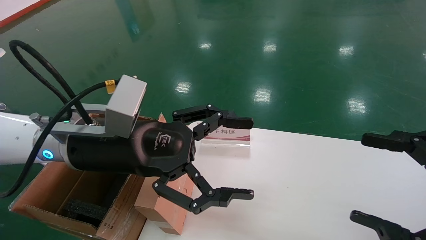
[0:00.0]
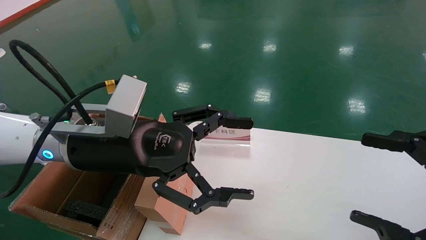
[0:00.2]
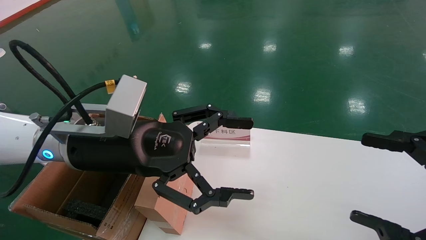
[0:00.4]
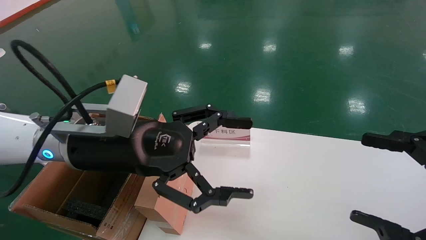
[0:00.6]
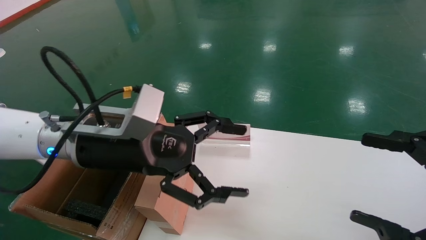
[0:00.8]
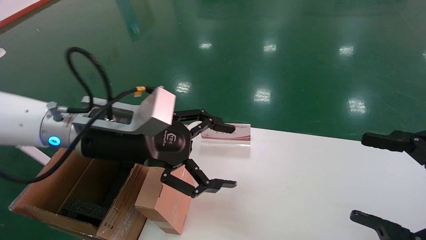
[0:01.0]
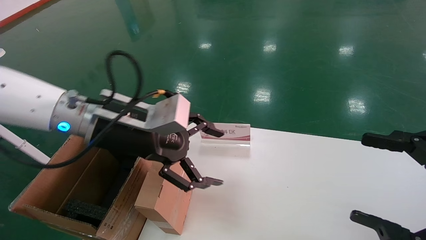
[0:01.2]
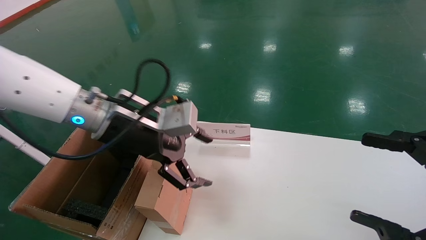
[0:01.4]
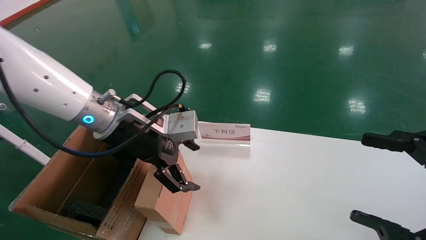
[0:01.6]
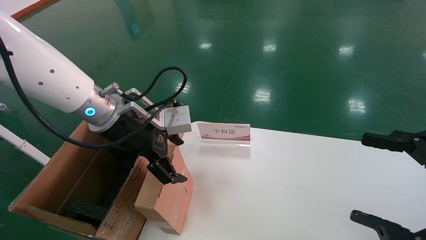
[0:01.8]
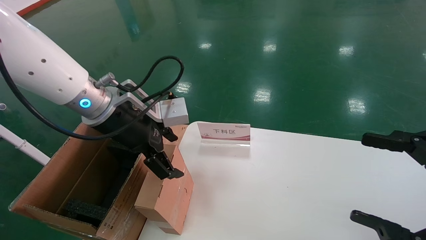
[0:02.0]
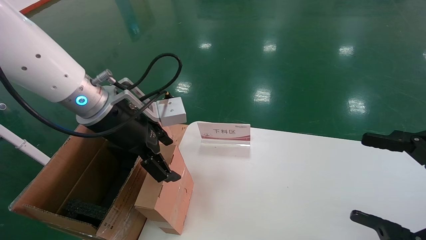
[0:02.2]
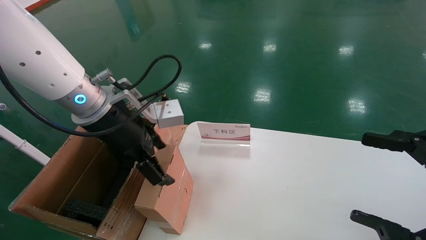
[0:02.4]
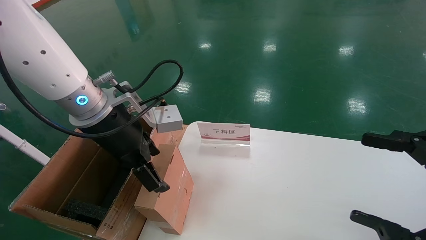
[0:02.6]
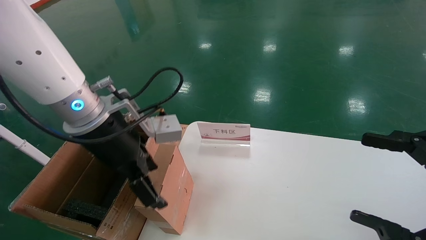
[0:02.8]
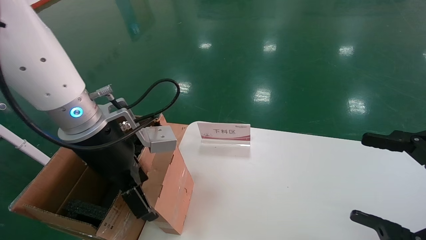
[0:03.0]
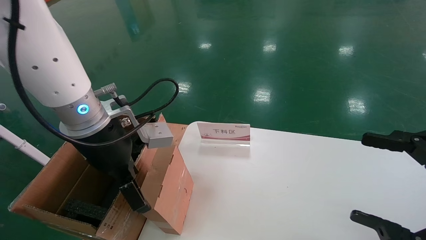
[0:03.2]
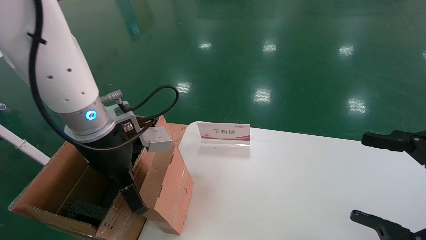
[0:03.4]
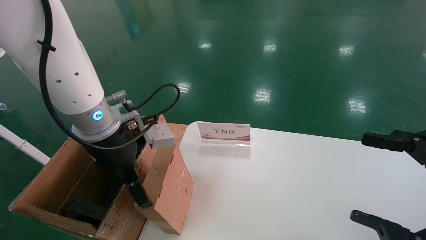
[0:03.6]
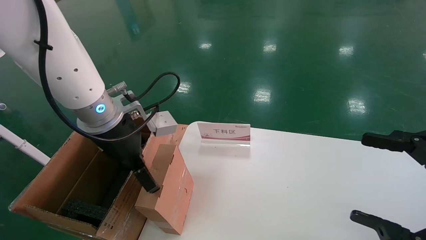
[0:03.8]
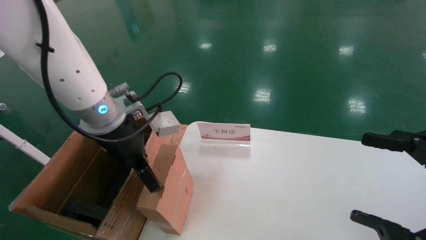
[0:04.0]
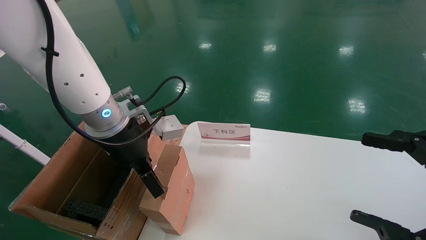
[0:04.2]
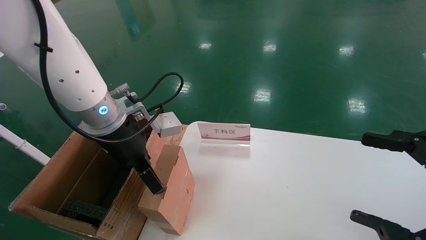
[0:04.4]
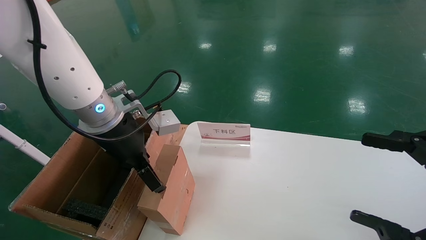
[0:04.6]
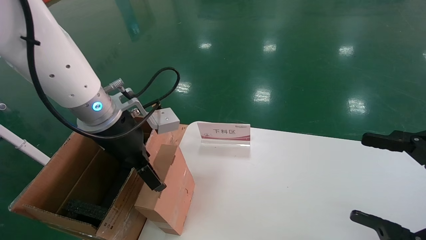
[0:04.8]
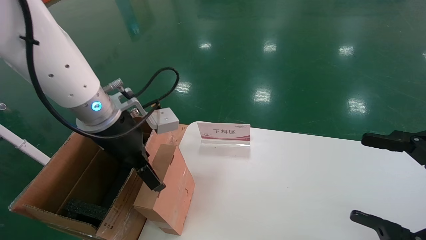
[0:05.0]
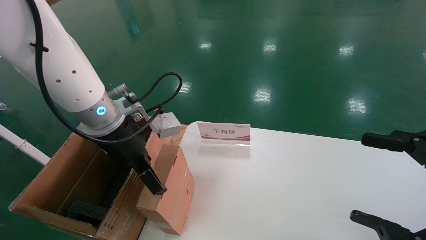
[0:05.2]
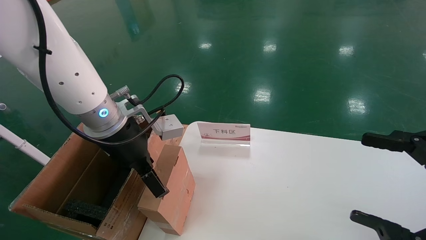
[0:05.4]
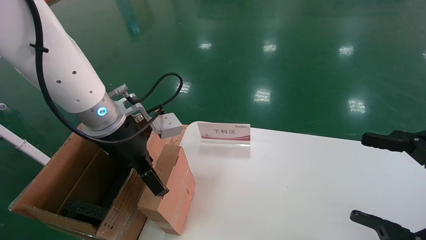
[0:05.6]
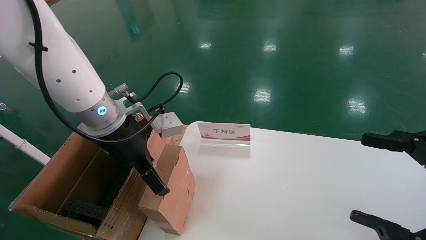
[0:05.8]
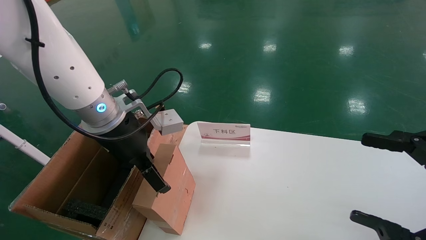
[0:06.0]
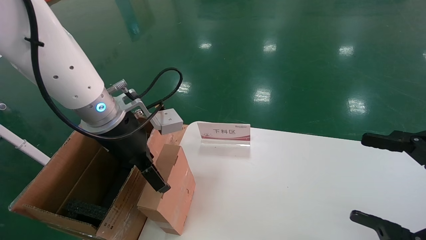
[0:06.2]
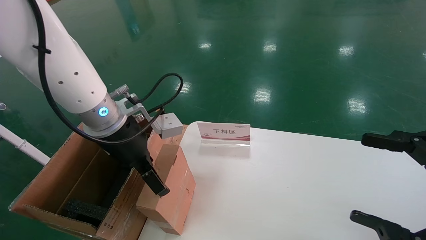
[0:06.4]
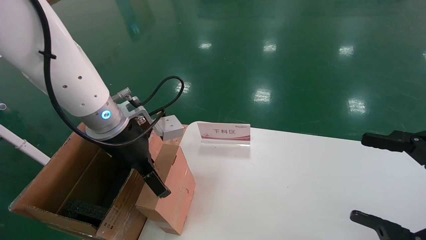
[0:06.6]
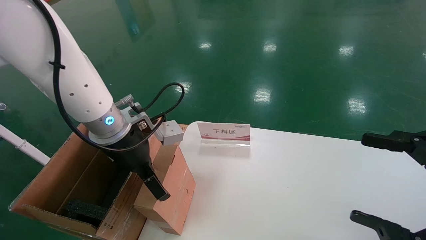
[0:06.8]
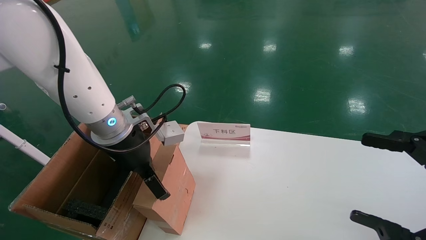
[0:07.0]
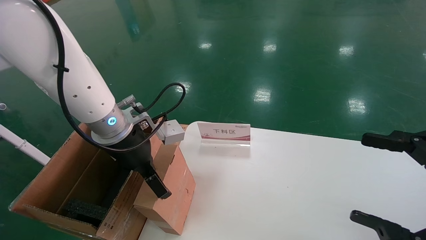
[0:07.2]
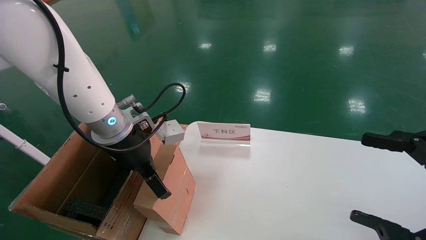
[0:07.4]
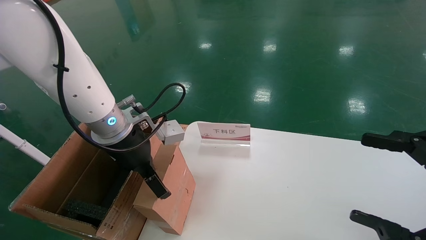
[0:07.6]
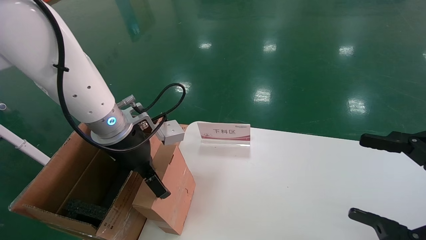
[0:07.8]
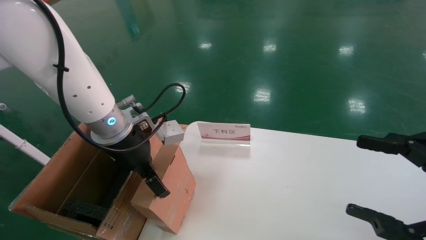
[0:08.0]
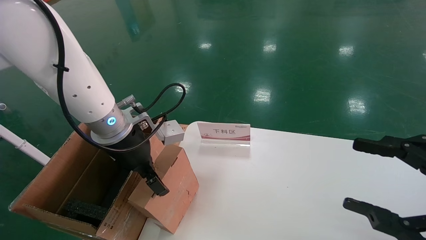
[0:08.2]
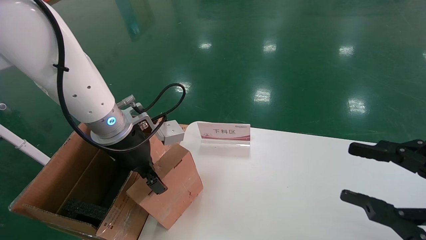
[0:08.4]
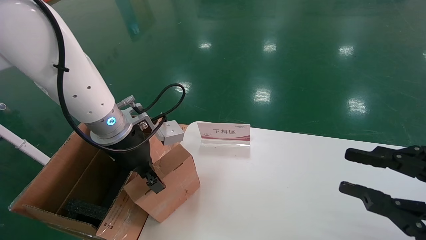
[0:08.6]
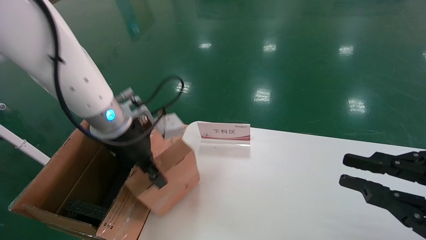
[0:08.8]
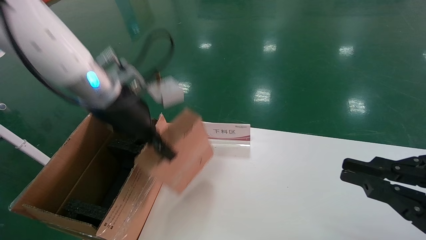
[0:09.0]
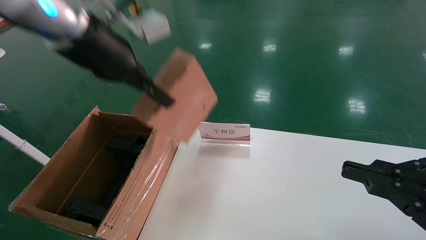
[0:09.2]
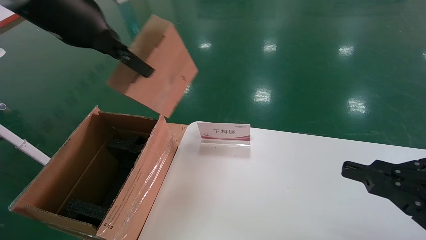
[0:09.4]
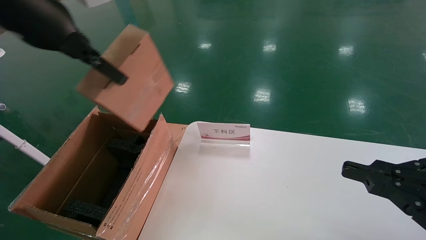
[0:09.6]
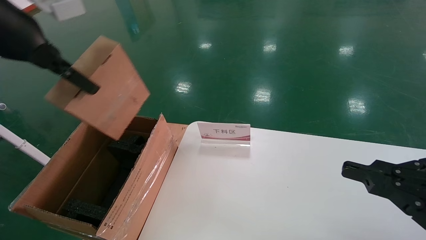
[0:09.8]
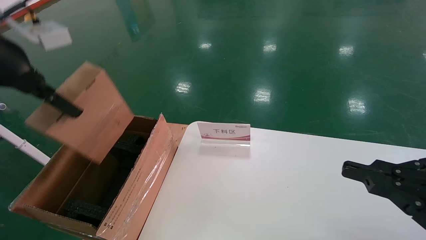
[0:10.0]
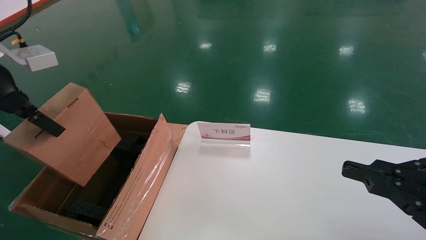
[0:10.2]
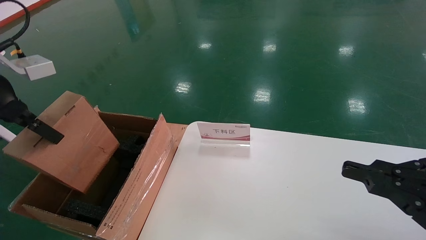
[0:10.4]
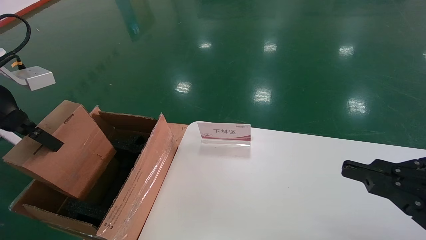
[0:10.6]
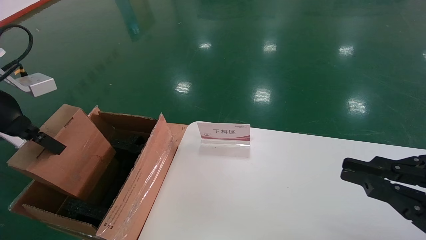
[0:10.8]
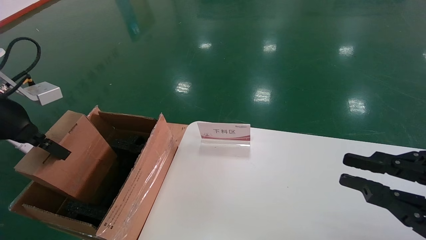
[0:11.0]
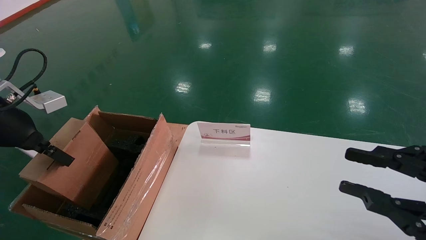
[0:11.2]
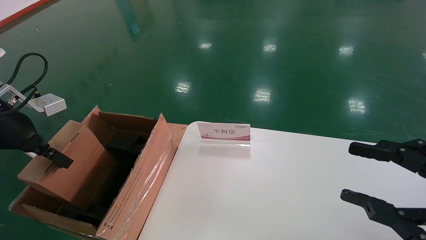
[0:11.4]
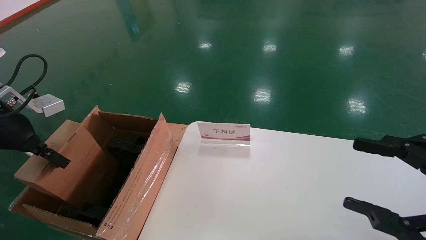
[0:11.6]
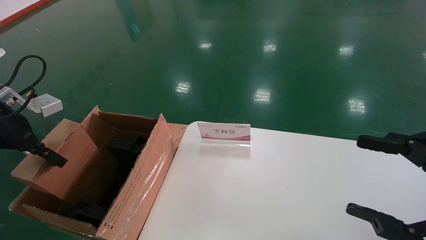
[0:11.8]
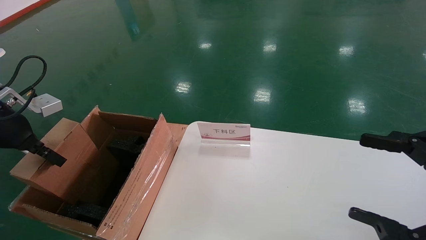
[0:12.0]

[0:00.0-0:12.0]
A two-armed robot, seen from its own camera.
Task of the whole recording: pick up the small cardboard box and load it into the large cardboard box.
Step, 0:01.0 to 0:08.6: Pick up the mouse and power cord box.
0:00.0 to 0:01.6: The left gripper moves forward, approximately 5 cm.
0:03.0 to 0:04.4: There are only small adjustments of the grippers.
0:04.4 to 0:06.0: The two grippers keep their place.
0:06.0 to 0:07.6: There are only small adjustments of the grippers.
0:07.6 to 0:09.0: The left gripper goes approximately 10 cm upward, and closes up, while the right gripper closes up.
0:09.0 to 0:10.4: The left gripper moves to the left and backward, approximately 20 cm.
0:10.4 to 0:12.0: The right gripper opens. The left gripper is displaced downward by approximately 10 cm.

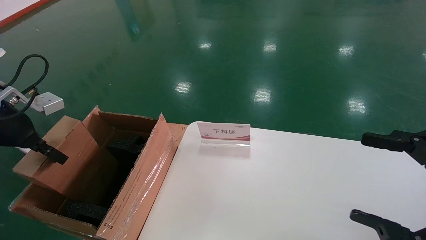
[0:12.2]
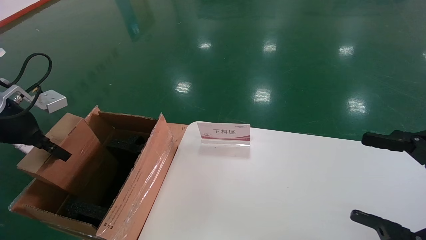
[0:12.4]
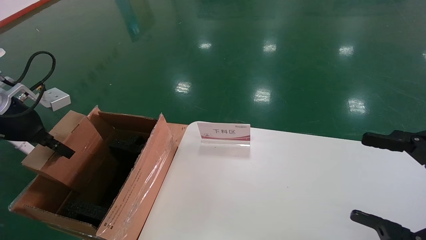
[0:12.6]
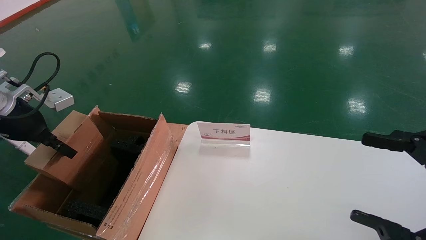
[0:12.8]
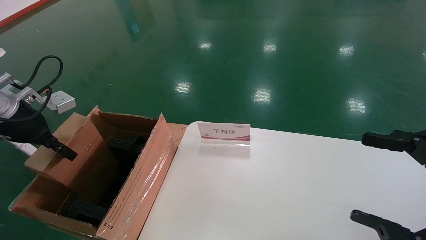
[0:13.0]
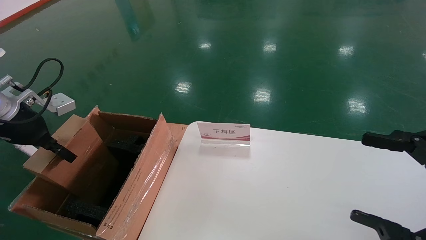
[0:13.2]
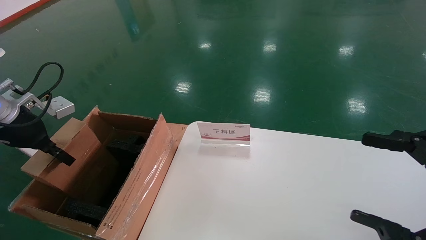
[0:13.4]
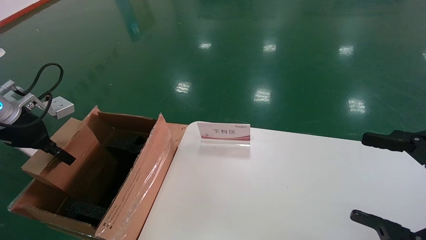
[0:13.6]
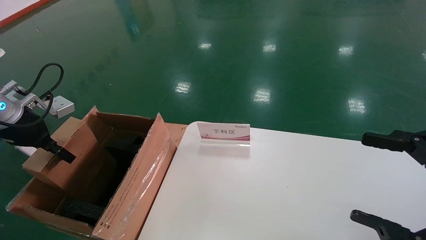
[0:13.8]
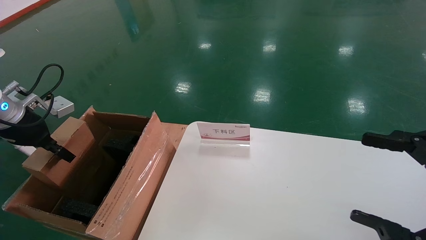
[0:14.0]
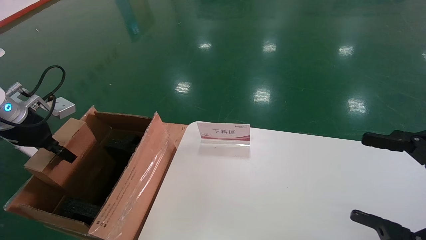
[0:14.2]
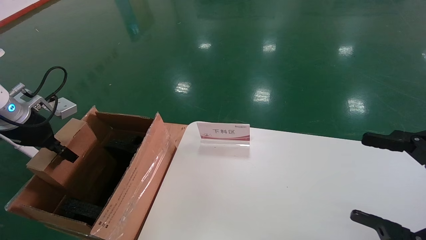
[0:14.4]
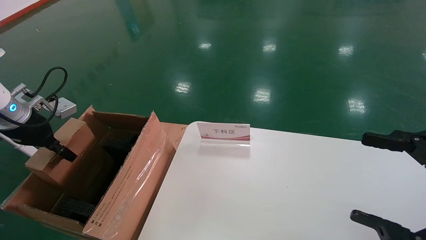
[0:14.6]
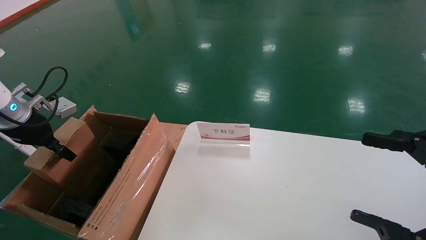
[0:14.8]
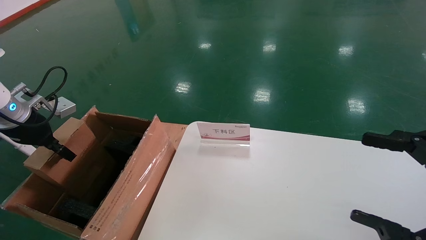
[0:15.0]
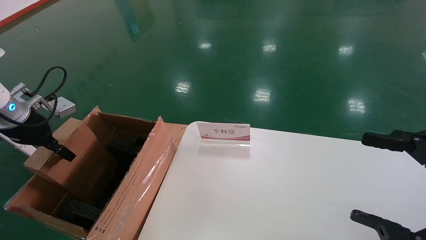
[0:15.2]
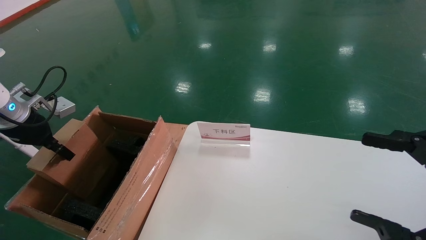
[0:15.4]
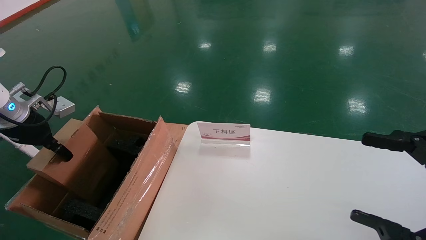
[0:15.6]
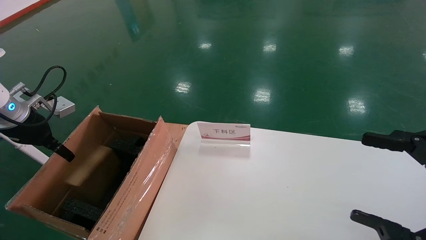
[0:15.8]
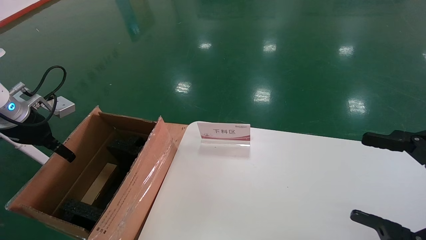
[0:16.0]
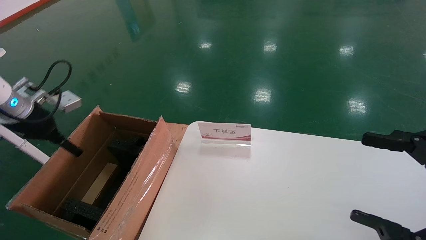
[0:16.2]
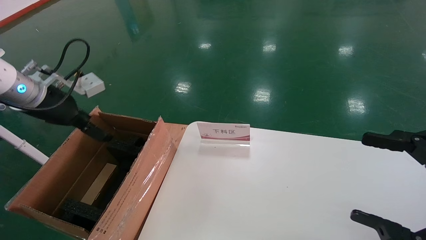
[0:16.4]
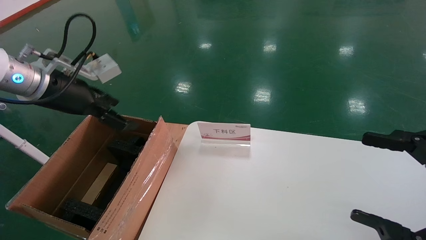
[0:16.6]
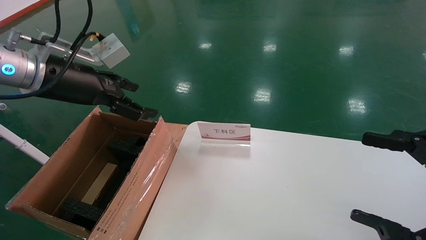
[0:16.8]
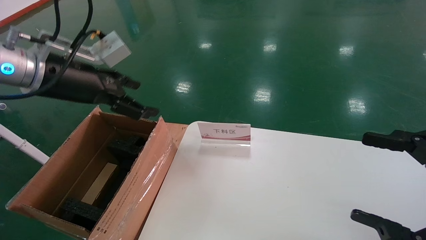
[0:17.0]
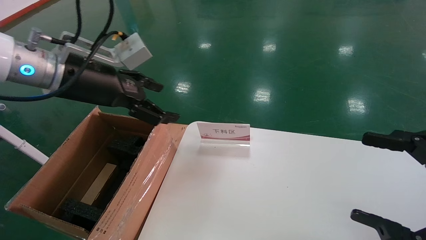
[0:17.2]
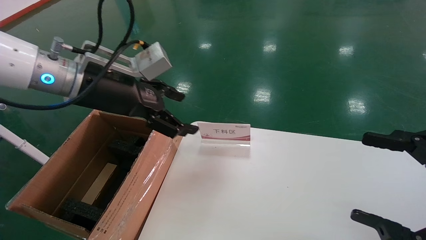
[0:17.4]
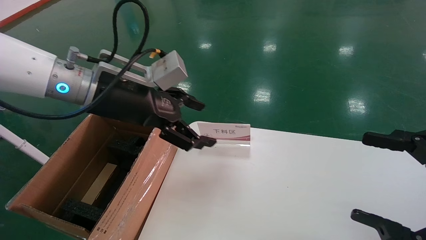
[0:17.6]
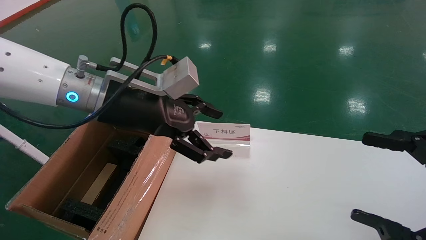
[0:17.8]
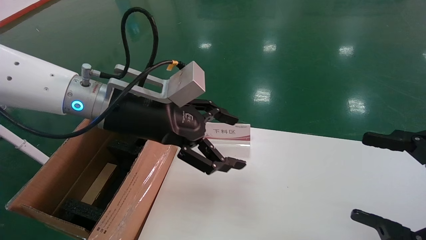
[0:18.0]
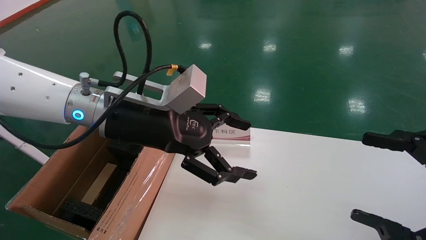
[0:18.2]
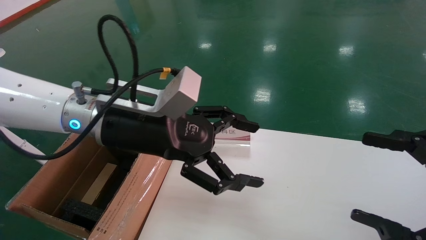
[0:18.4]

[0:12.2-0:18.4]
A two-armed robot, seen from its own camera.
Task of the whole recording: pick up the small cardboard box and load it into the large cardboard box.
Step, 0:12.2 to 0:16.0: Place the mouse and power cord box into the case.
0:12.2 to 0:13.8: The grippers make only small movements.
0:13.8 to 0:15.4: There are only small adjustments of the grippers.
0:15.4 to 0:16.8: The left gripper moves to the right and upward, approximately 15 cm, and opens its fingers.
0:16.8 to 0:18.4: The left gripper goes about 15 cm to the right.
